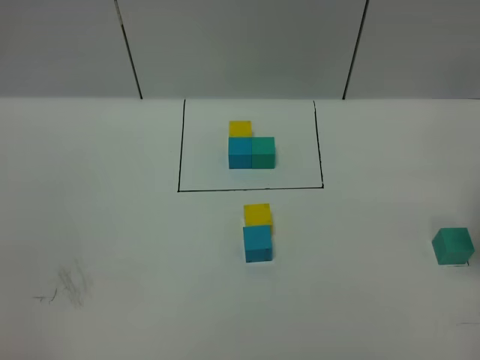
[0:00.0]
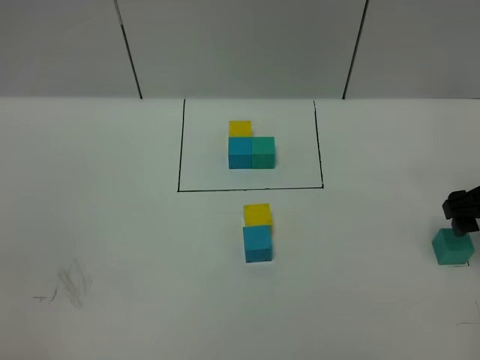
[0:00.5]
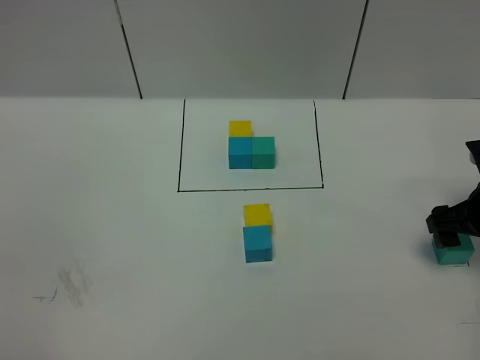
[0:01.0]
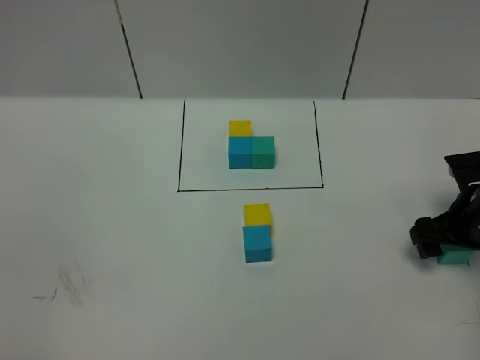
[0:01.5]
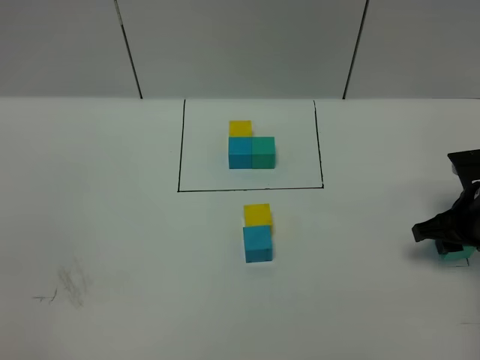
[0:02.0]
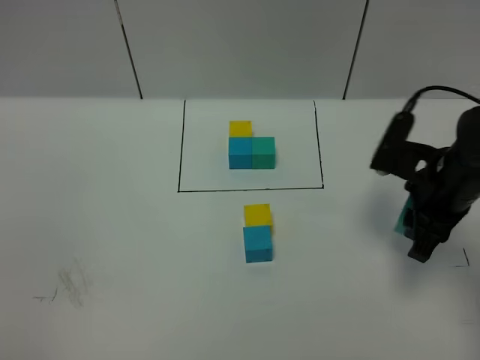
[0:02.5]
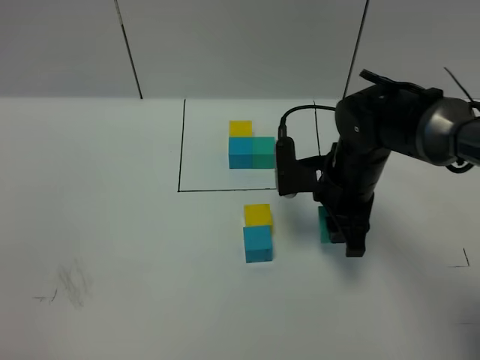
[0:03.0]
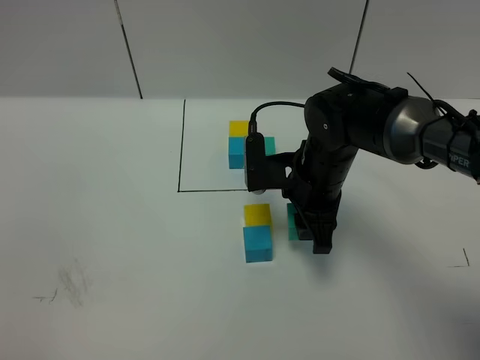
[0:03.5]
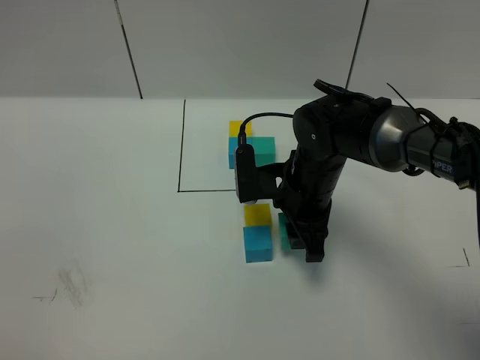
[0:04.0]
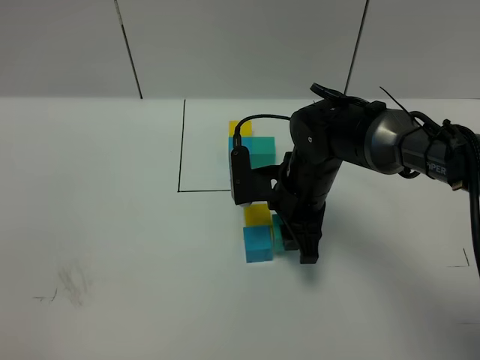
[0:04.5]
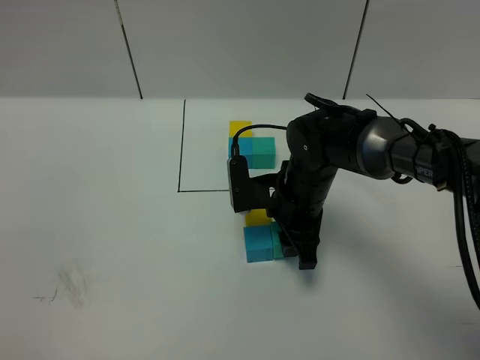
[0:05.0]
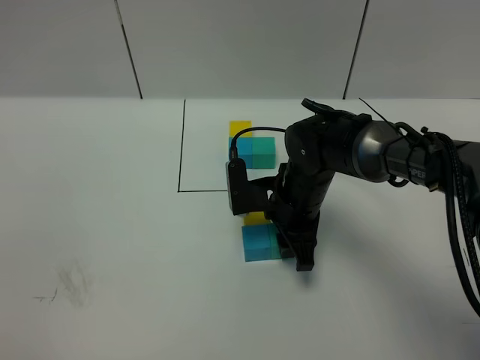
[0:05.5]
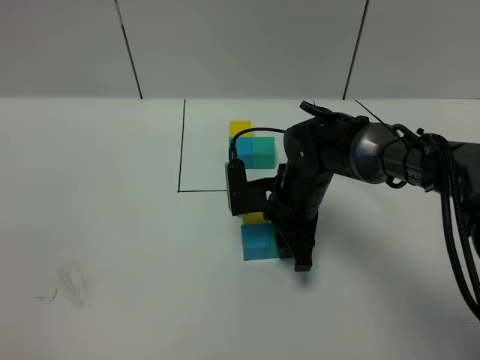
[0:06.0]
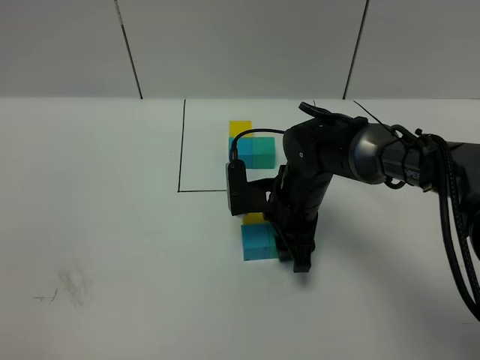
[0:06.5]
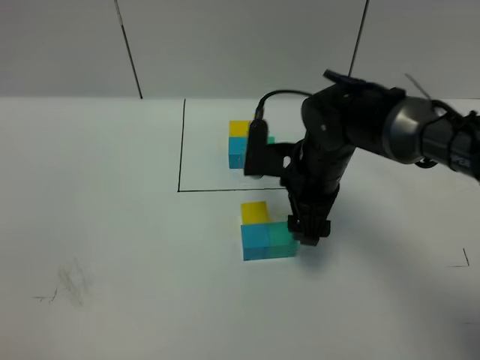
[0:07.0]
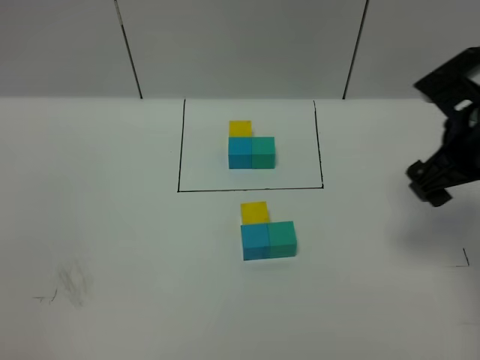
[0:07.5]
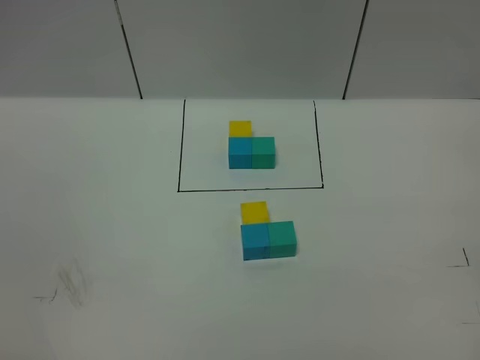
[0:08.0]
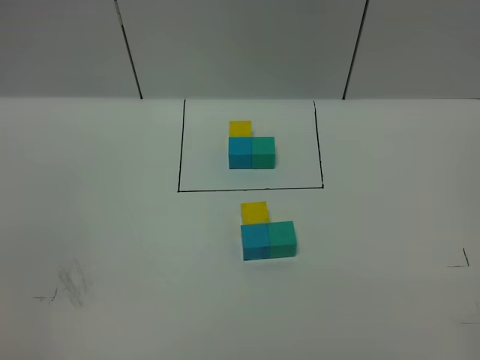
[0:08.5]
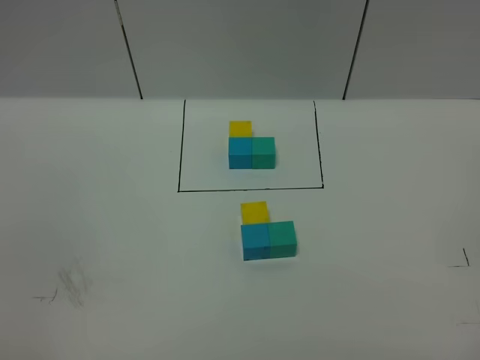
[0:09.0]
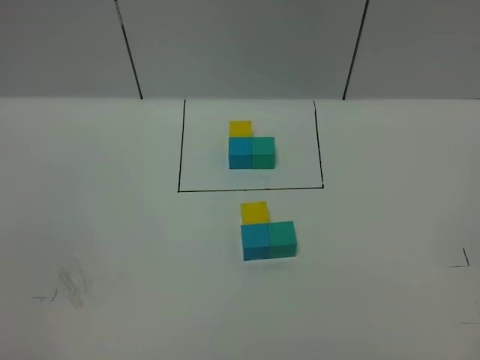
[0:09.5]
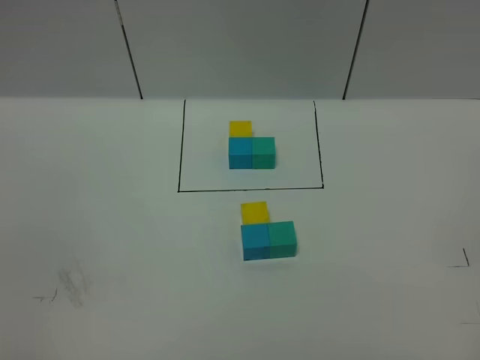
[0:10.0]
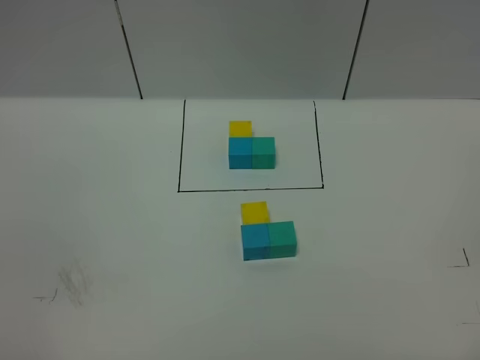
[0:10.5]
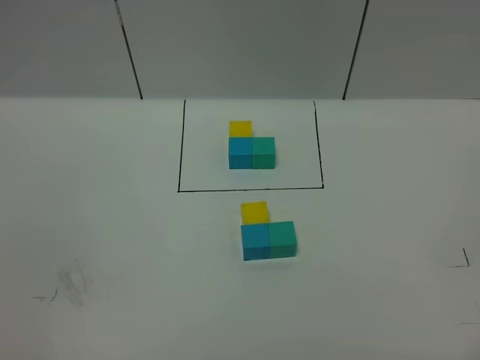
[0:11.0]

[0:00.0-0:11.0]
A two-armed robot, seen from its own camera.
Task of the whole recording: According to the building block template in front, assemble the scattered blocks together.
Step, 0:00.0 to 0:06.5: Put the green cube on the right of the blue cube.
0:00.0 to 0:02.0: The right gripper travels downward by about 10 cm, and closes up.
0:02.0 to 0:03.5: The right gripper travels to the left by some 20 cm.
0:03.5 to 0:05.5: The grippers make only small movements.
0:05.5 to 0:07.5: The right gripper goes about 25 cm to the right and upward, and opens.
0:07.5 to 0:09.0: The right gripper travels backward by approximately 30 cm.
